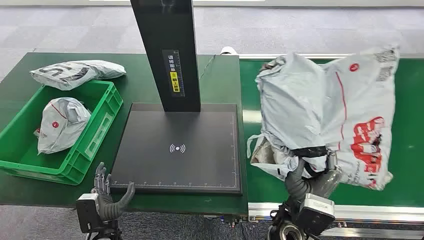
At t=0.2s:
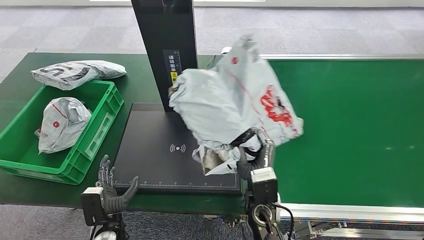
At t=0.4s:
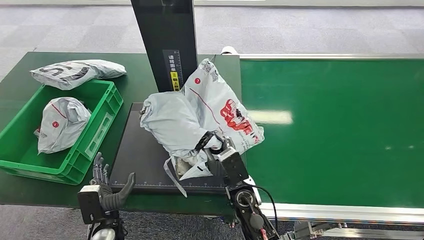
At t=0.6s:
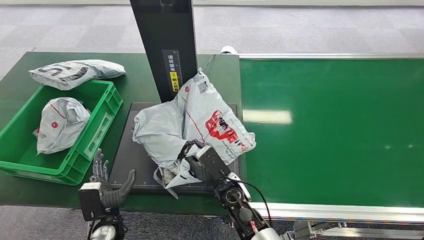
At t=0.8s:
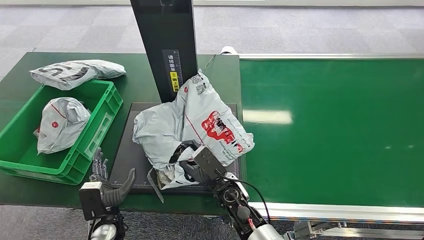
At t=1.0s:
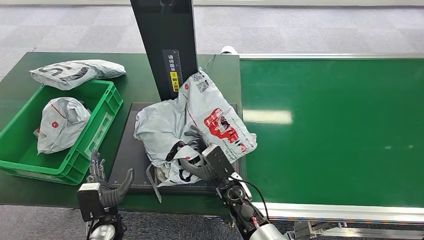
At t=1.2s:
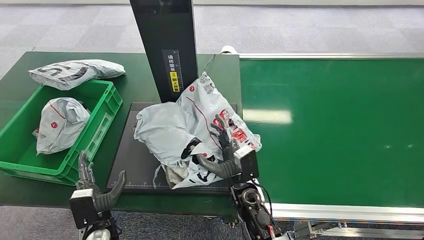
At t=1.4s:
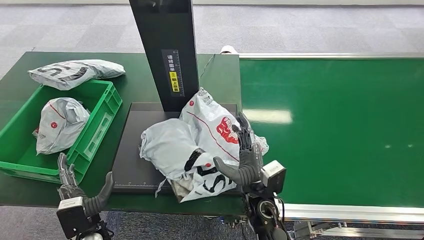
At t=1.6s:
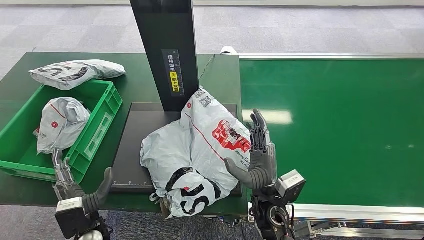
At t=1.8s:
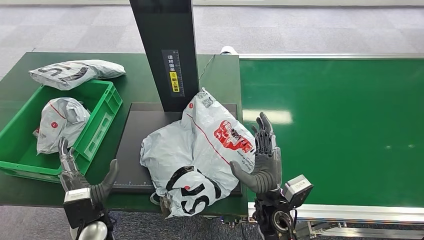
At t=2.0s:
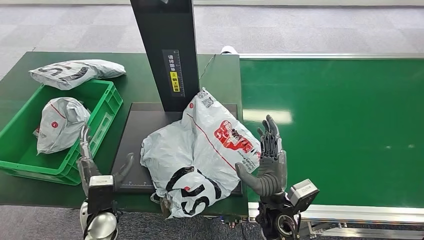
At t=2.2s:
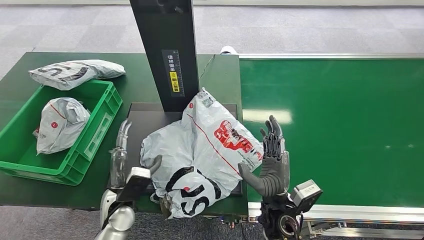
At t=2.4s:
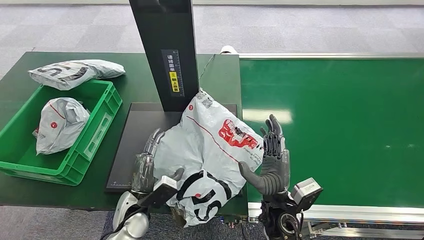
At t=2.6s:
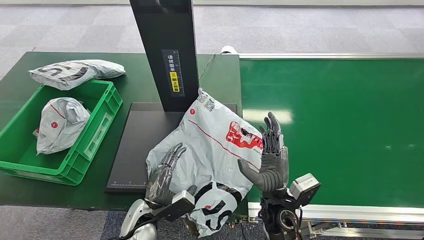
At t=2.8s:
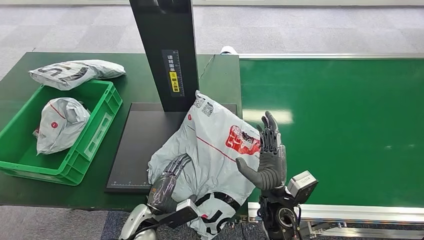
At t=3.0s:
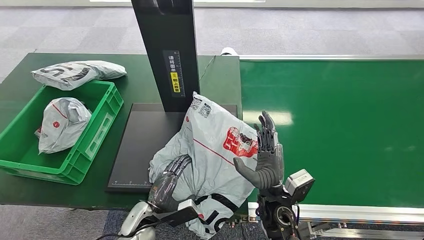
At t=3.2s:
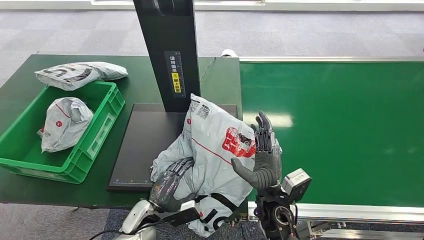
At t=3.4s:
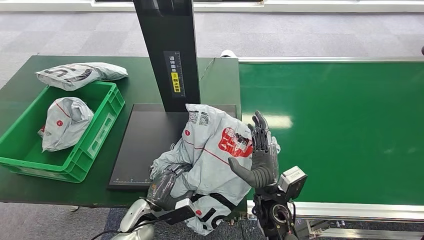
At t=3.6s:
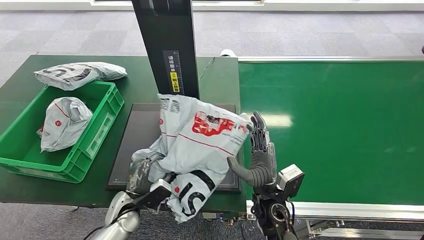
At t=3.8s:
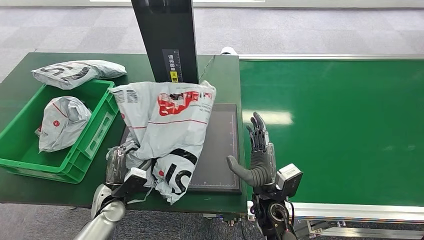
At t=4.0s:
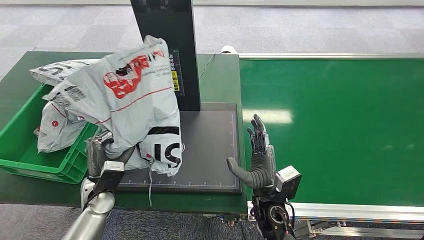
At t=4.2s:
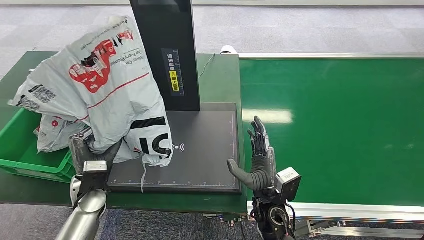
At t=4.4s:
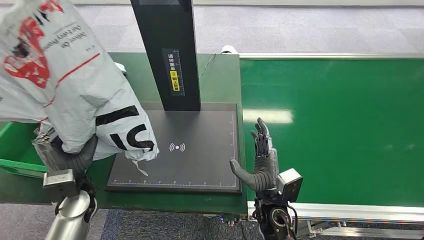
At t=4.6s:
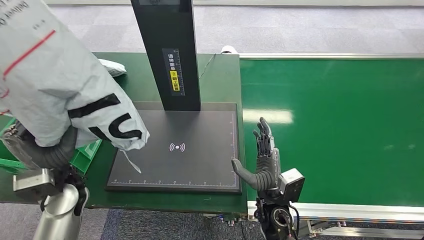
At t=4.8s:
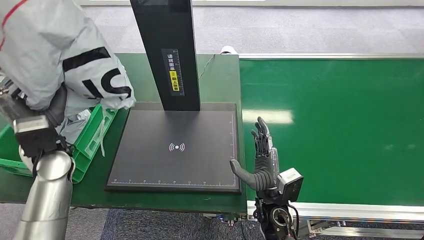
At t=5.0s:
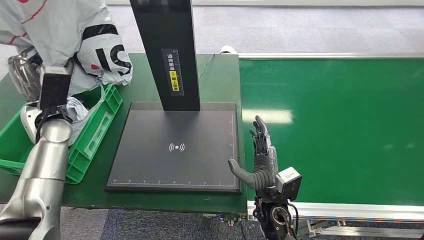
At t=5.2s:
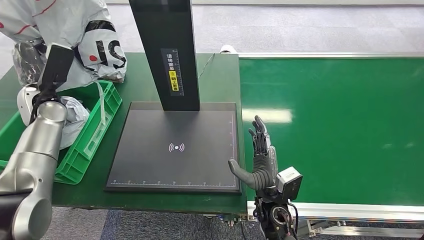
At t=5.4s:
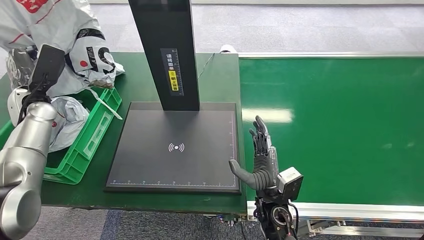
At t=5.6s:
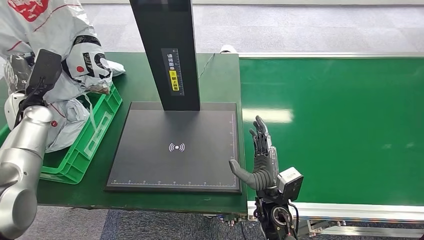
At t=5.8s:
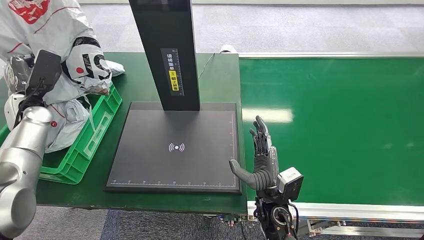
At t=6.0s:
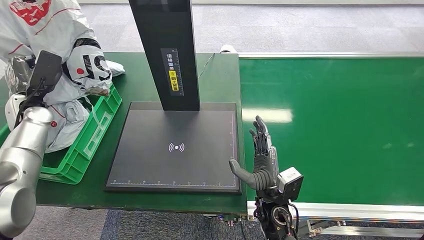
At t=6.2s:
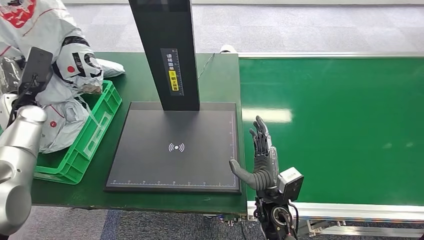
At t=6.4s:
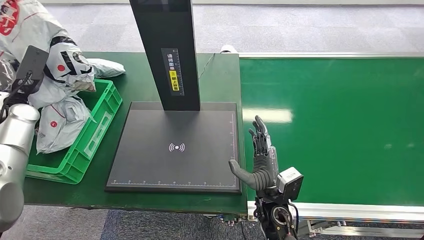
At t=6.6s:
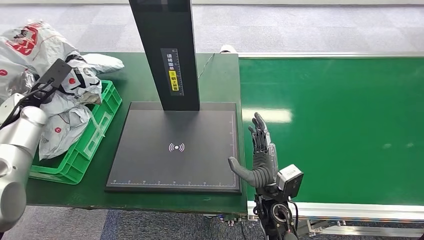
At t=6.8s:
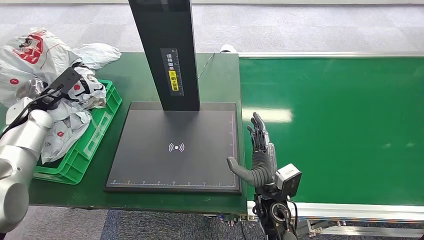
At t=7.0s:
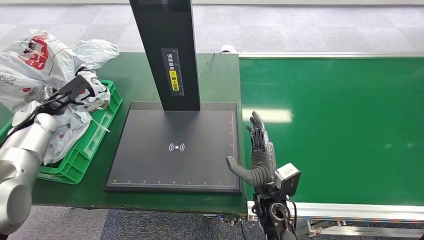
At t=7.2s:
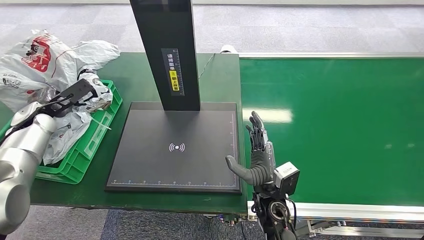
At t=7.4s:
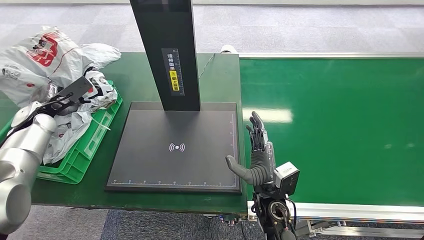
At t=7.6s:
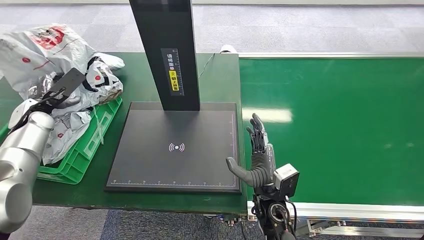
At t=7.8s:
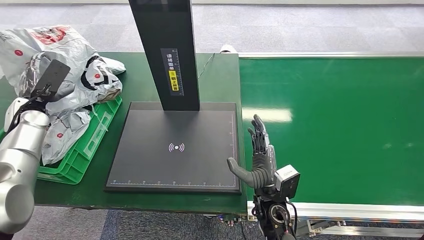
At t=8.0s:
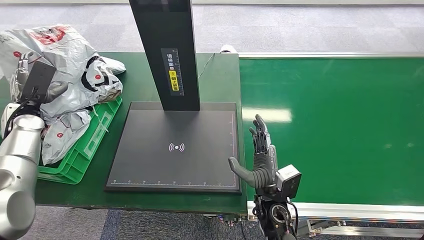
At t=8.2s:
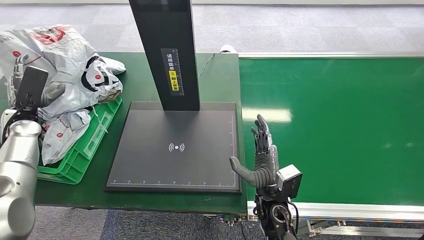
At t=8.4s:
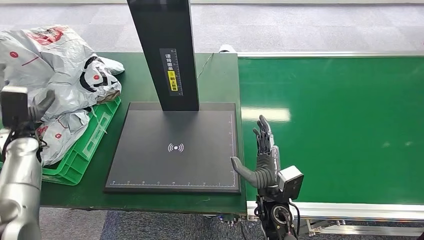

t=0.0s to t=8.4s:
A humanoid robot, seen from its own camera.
t=1.4s to t=2.8s: The left hand travels to the right by approximately 10 cm.
t=7.0s to t=8.4s: The left hand goes about 5 cm backward.
